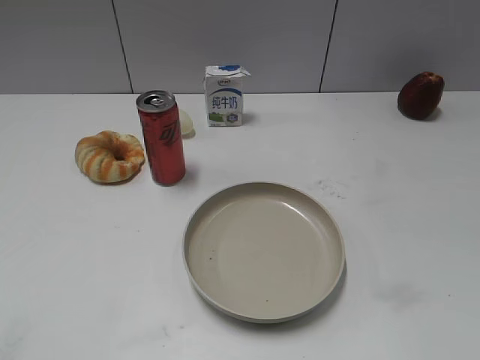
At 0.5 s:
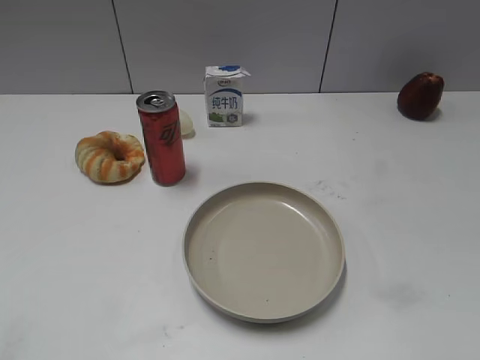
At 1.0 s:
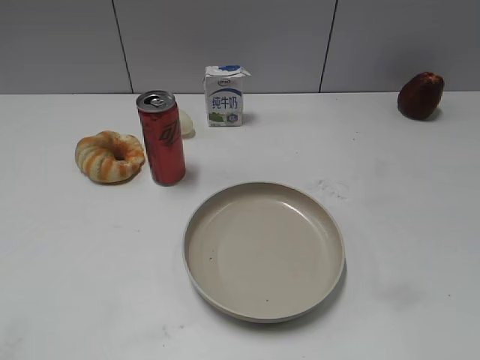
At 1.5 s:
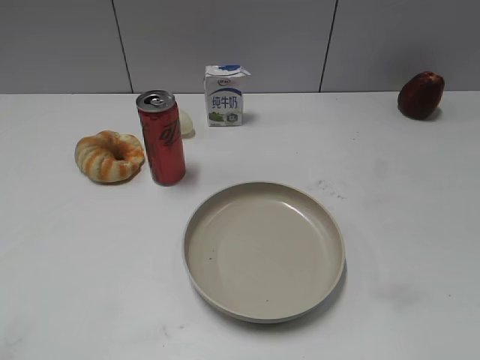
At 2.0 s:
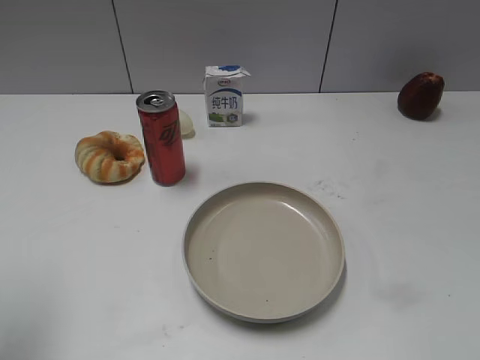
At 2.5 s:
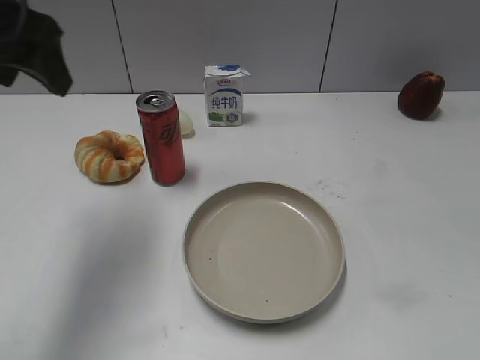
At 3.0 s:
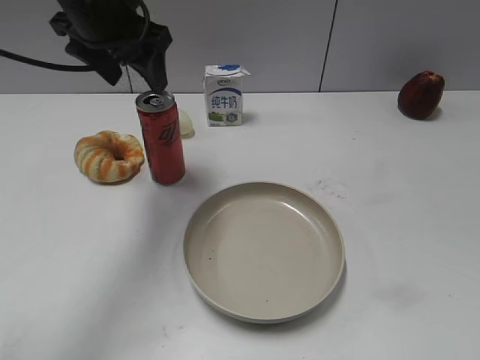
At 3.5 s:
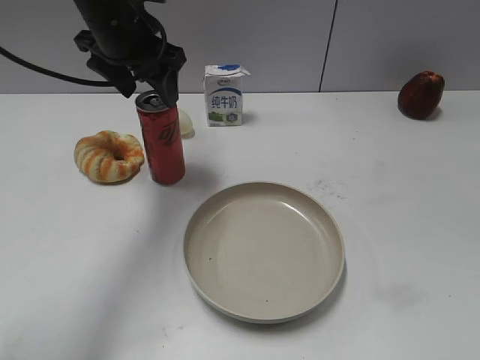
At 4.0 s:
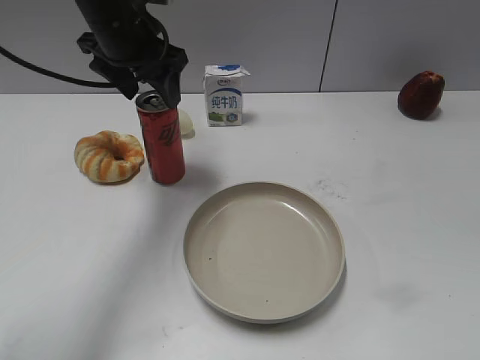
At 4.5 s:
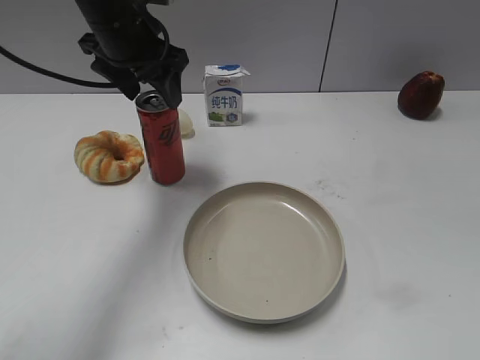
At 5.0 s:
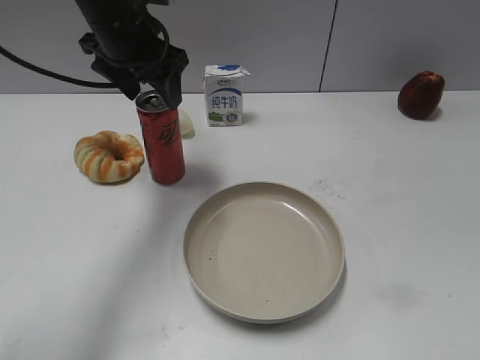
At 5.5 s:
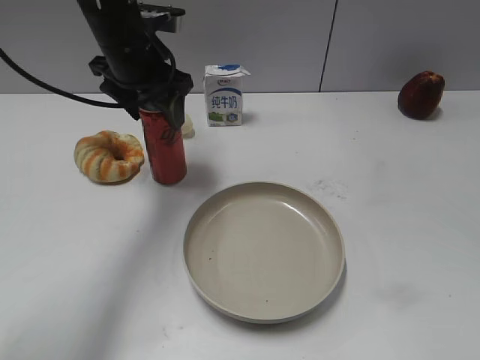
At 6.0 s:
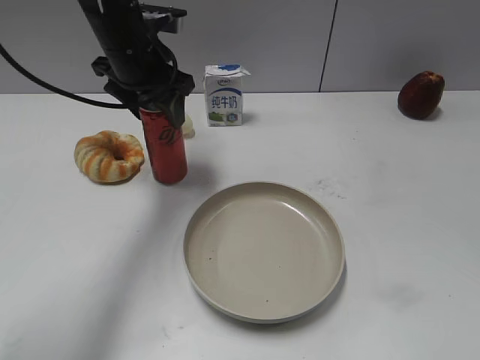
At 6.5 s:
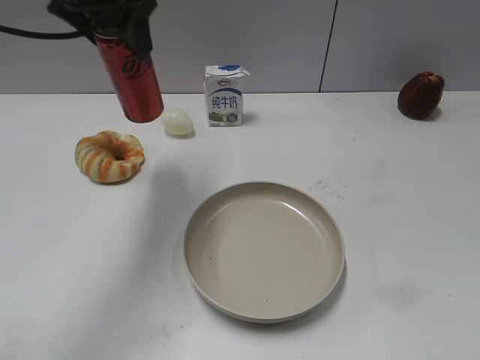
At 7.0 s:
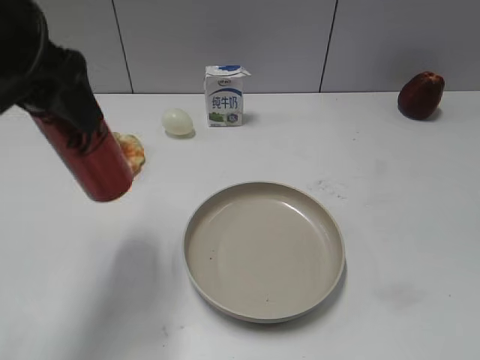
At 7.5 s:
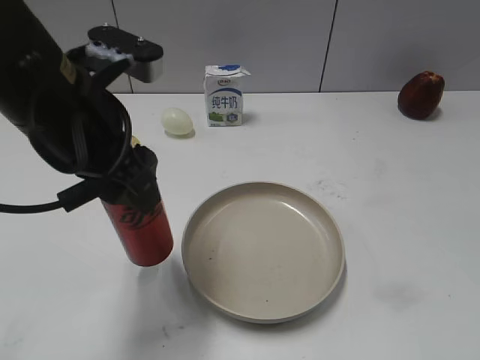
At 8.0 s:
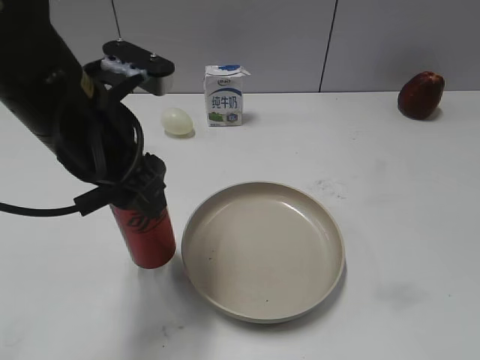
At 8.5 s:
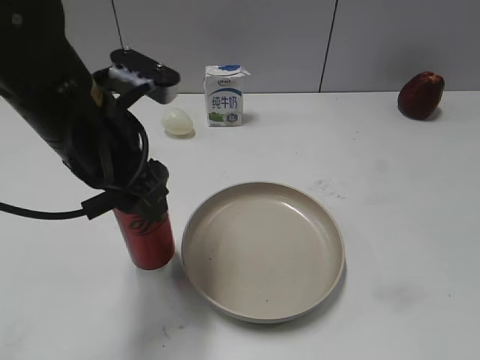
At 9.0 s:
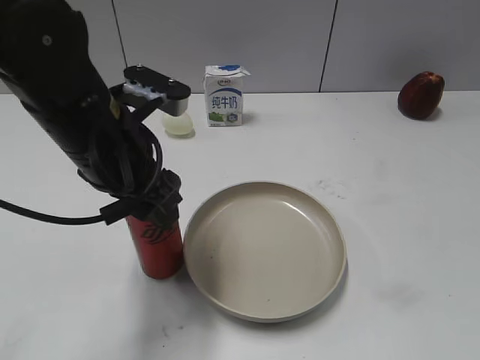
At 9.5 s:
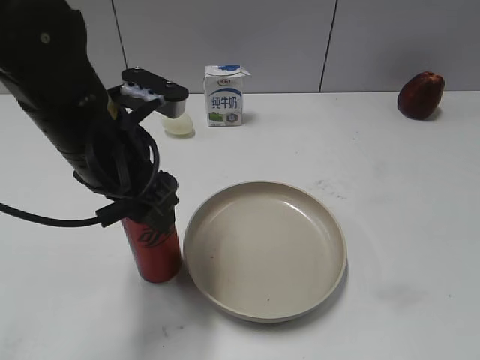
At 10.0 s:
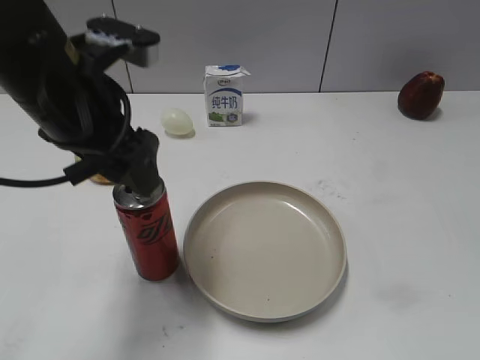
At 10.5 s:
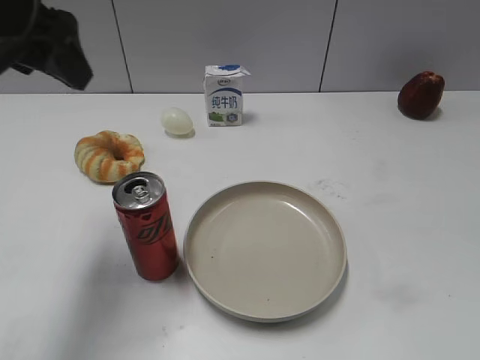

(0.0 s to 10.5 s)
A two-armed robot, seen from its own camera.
Step, 1.0 s - 5.5 s: Grasp the cola with left gripper.
Step, 6.0 s - 10.0 s: Place the cola on the table with left gripper.
2.0 s - 4.0 s: The left gripper shifts roughly 30 cm forward and to the right.
4.0 s - 6.5 s: The left gripper travels upward by roughly 5 cm, and closes its fingers.
6.5 s - 8.5 s: The left gripper shifts about 15 cm backward and downward.
8.5 s - 10.5 s: The left gripper goes approximately 15 cm upward and to the left, and opens its fingers.

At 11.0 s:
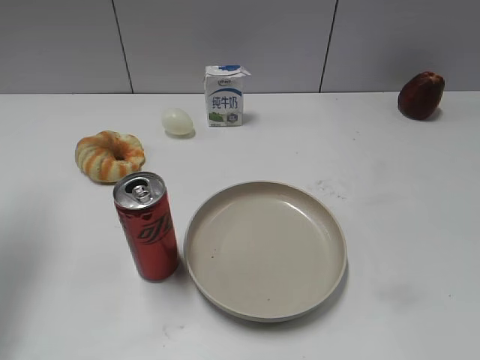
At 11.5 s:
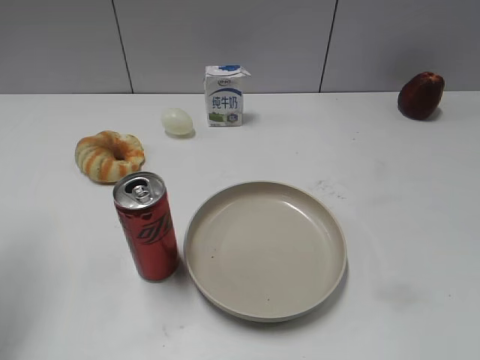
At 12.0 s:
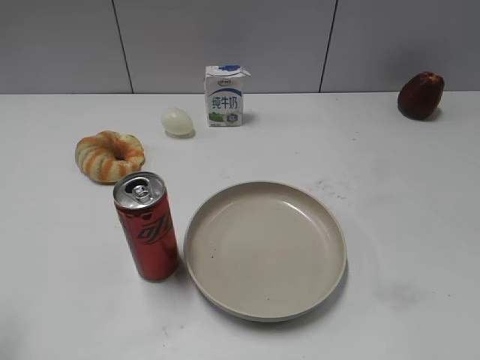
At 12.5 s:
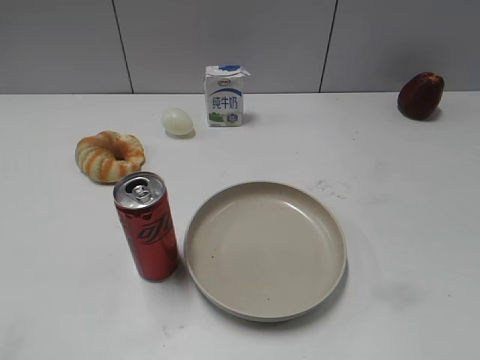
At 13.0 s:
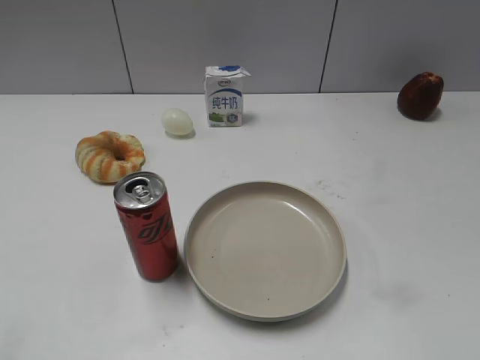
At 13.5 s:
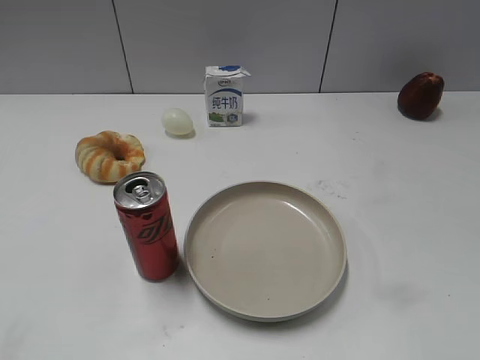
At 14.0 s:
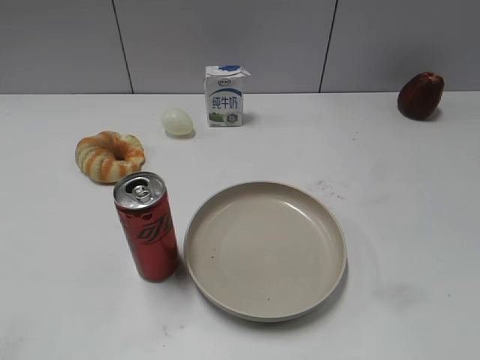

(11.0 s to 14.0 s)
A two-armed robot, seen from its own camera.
11.0 s - 12.5 s: The left gripper shifts some 25 cm backward.

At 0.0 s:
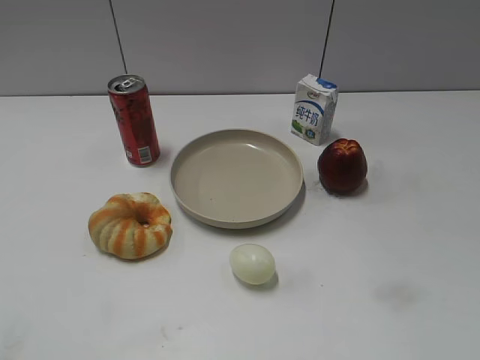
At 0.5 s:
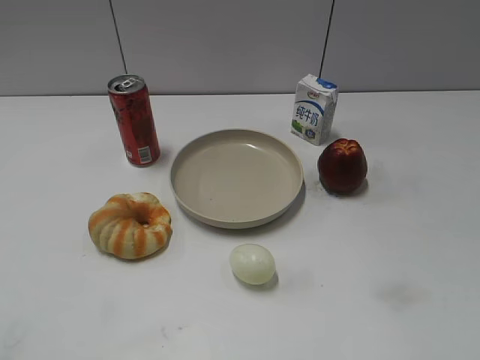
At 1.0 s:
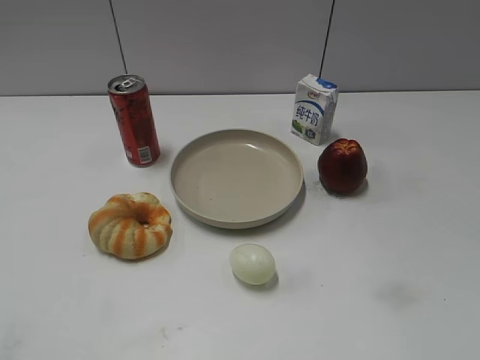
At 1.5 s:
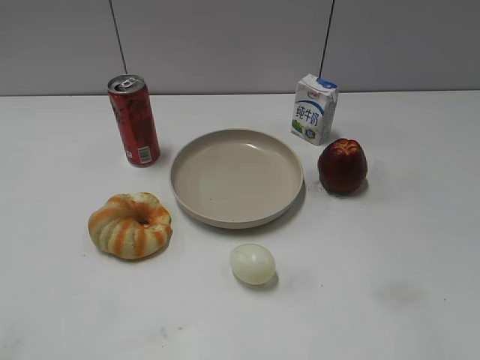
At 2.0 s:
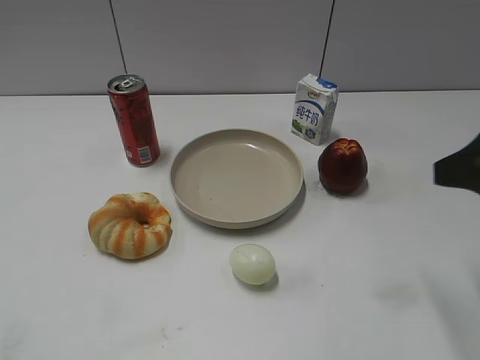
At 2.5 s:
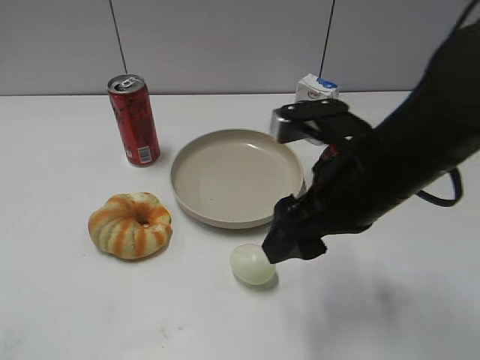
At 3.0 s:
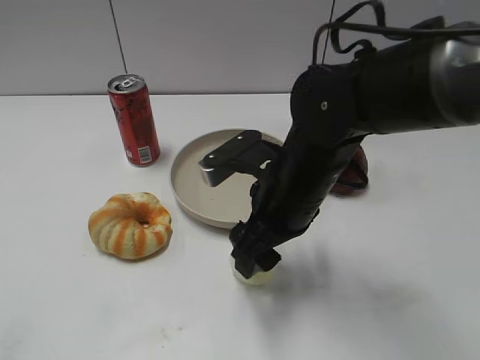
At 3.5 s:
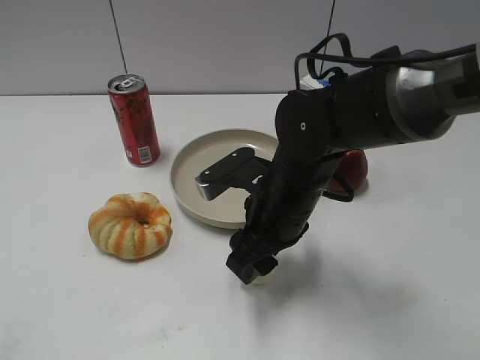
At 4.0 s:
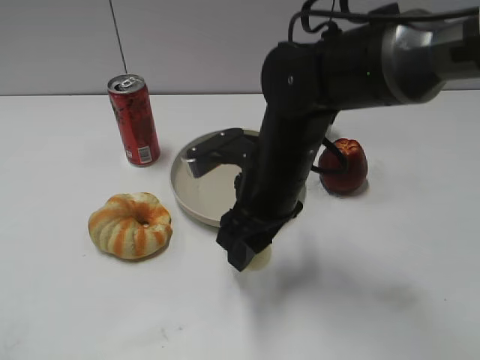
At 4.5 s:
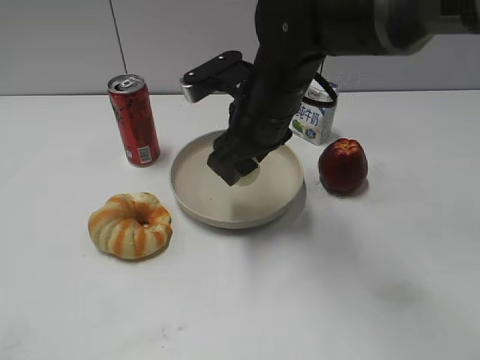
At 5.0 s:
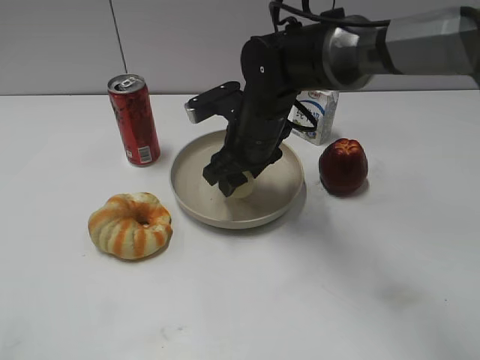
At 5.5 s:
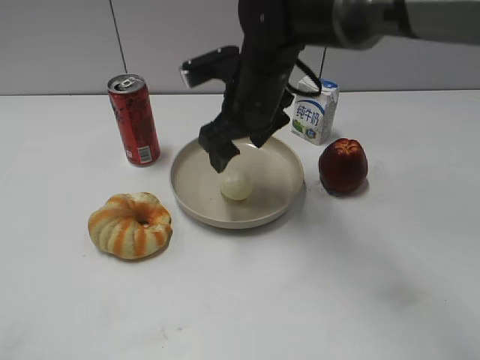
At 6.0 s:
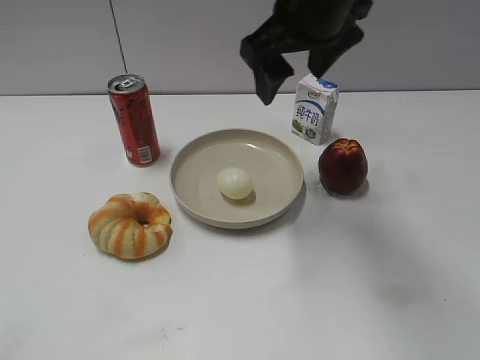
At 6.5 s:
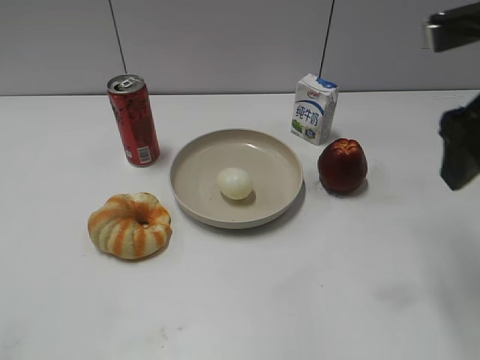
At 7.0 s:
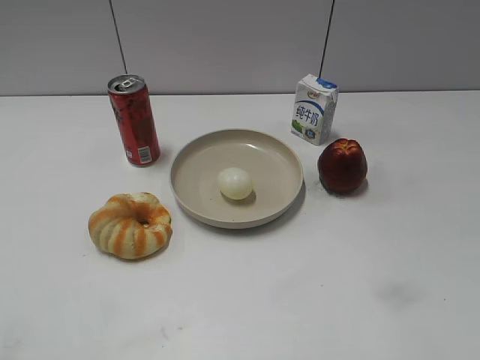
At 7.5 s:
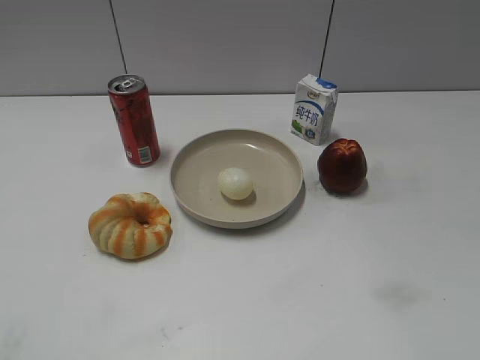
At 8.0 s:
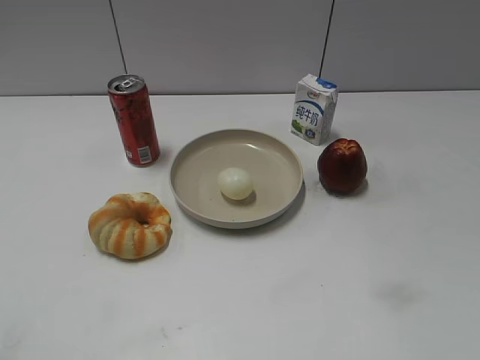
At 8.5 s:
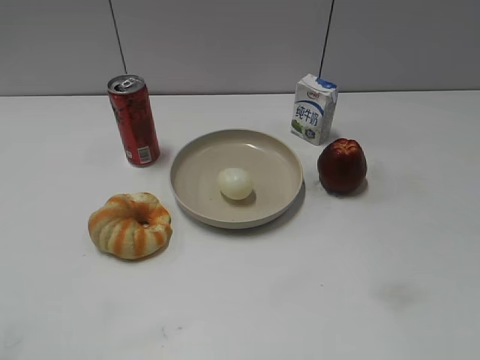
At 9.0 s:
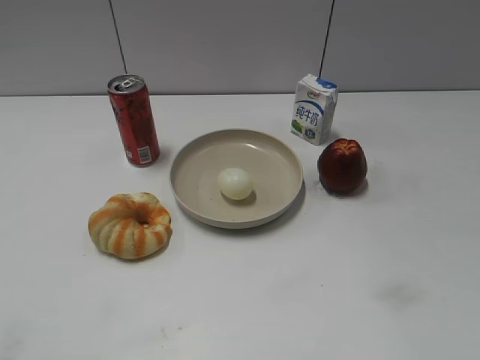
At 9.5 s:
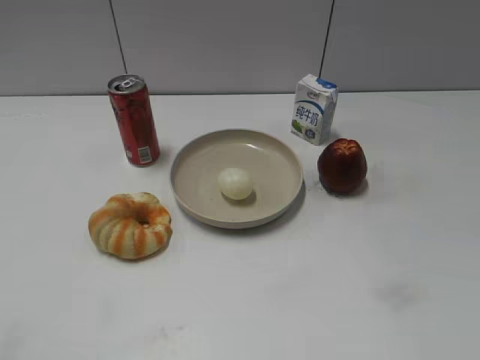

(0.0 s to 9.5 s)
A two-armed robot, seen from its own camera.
Step, 1.0 s - 3.5 s: Grasp the egg with right gripper.
Step, 4.0 s - 5.5 s: Place the egg on the plate with right gripper.
2.0 s - 4.0 s: The right gripper shifts about 25 cm to the left and downward, and closes.
4.0 s - 5.5 s: The right gripper goes about 10 cm forward, and opens its fingers.
5.5 s - 7.5 s: The right gripper heads backward and to the right, covering about 40 cm.
